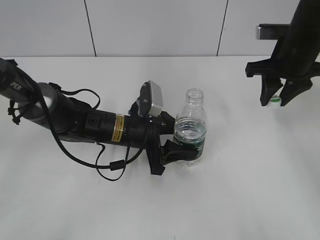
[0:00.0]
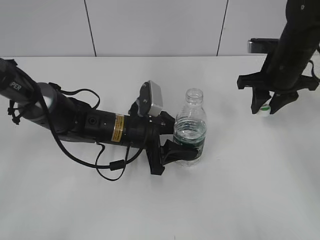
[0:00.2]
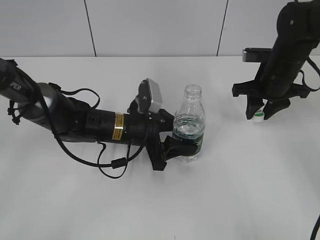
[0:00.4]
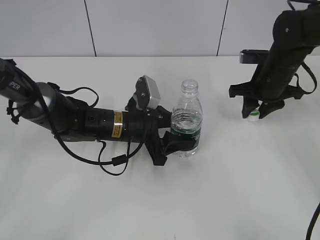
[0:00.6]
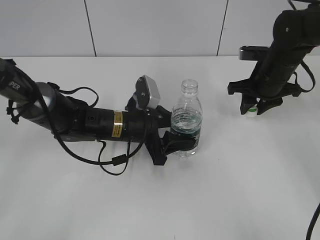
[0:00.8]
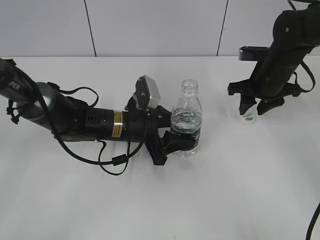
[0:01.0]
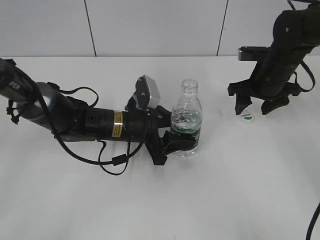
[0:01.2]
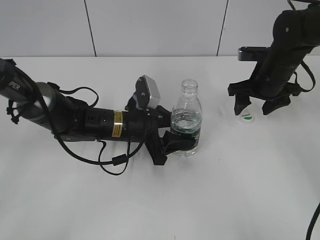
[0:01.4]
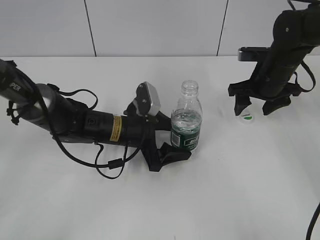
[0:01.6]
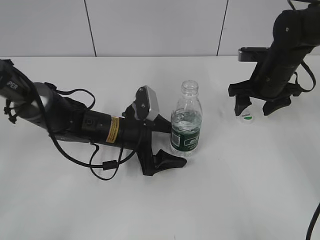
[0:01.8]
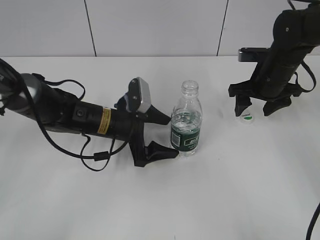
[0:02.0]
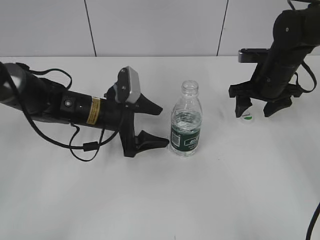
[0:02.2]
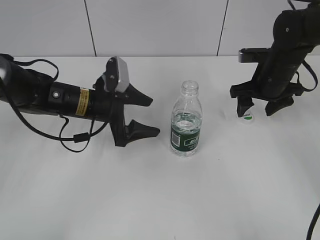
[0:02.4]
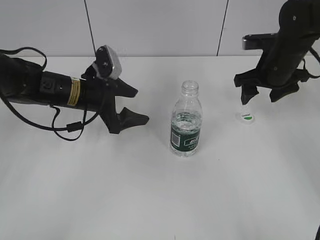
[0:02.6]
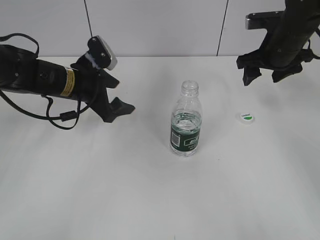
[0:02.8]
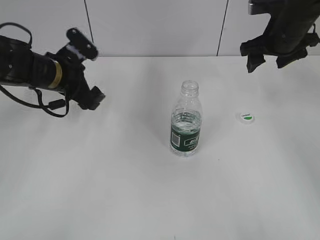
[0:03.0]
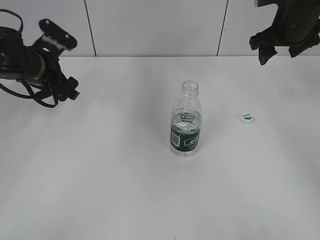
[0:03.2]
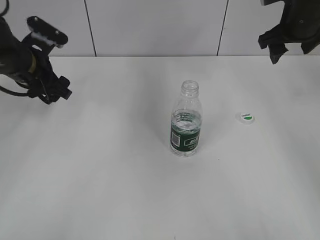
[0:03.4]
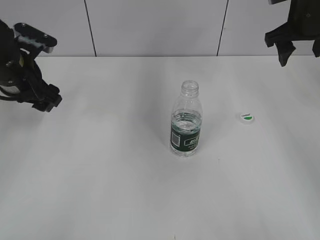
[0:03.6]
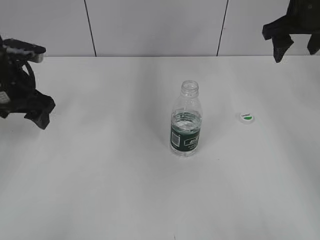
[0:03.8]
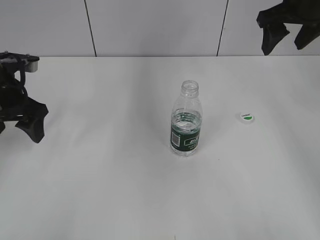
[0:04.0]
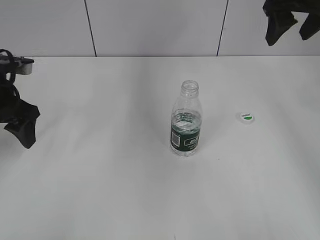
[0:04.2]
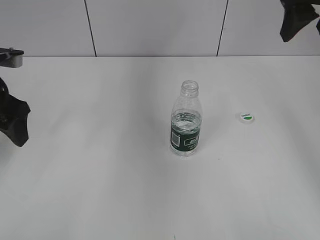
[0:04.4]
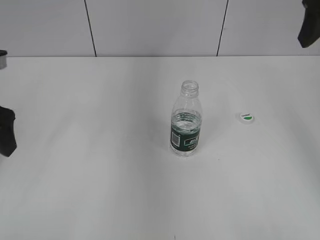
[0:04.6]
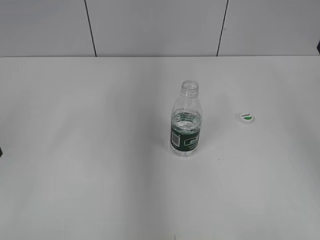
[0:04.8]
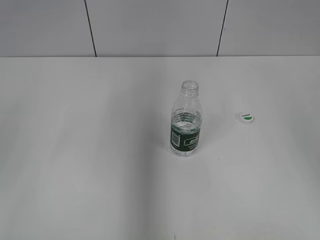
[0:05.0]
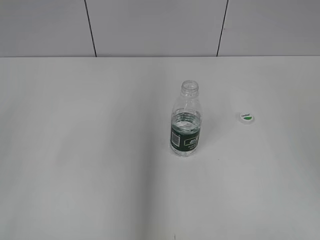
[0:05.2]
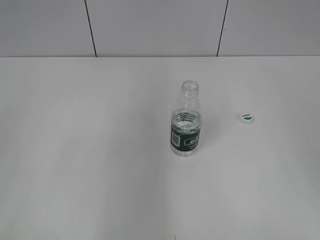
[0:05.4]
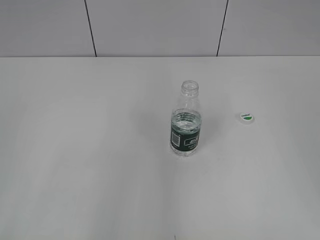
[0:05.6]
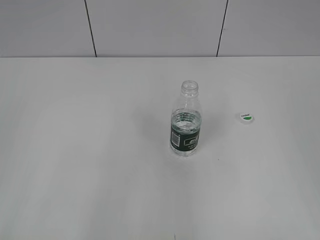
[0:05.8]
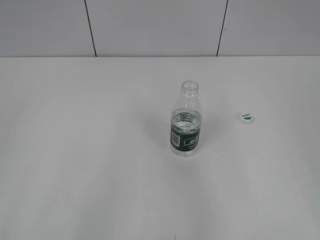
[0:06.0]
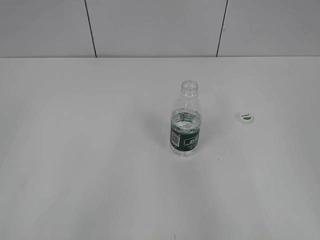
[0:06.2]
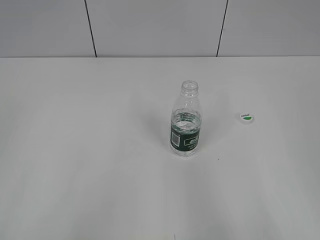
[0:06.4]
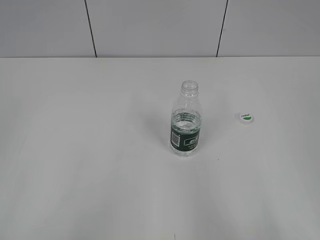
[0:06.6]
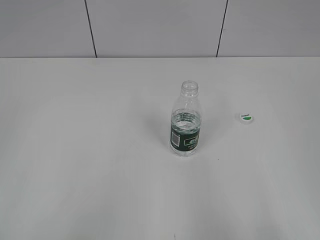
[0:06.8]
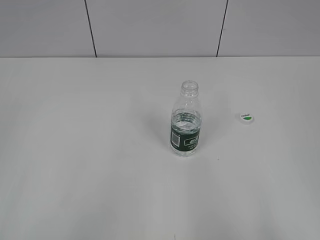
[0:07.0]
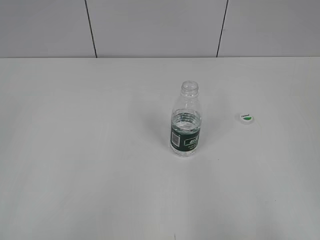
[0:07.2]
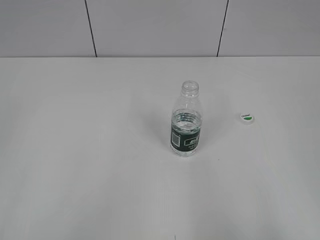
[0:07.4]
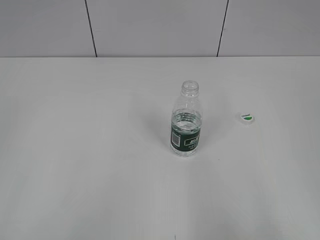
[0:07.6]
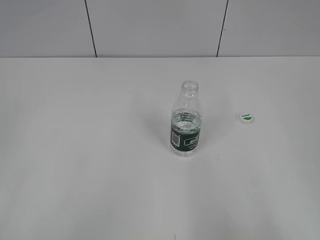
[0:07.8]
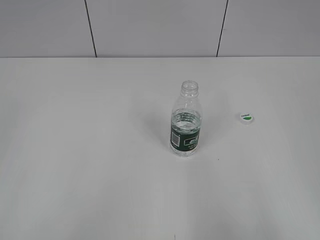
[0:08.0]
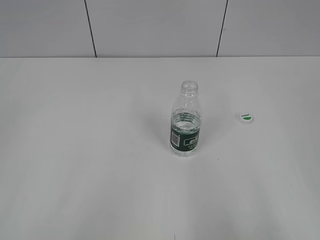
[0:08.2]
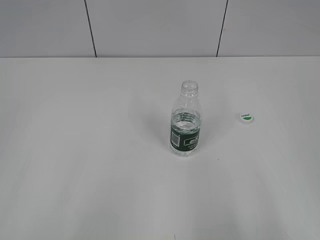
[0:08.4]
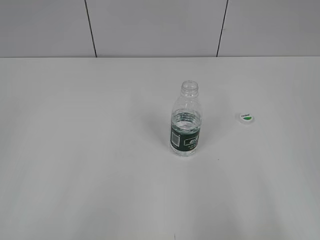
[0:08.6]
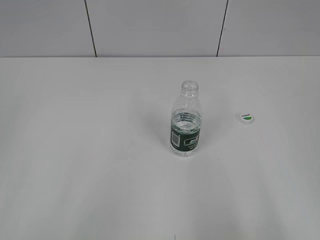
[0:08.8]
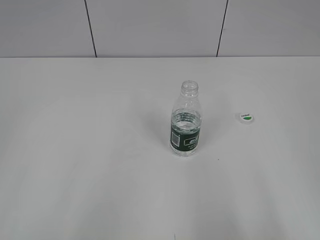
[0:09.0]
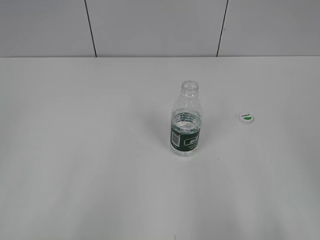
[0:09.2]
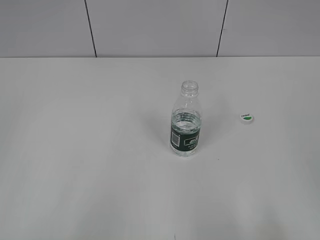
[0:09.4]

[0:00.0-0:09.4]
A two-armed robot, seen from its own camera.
0:00.0 to 0:01.6: The right gripper heads downward, covering about 10 cm, and opens. The left gripper opens up.
0:01.6 to 0:03.2: The right gripper goes roughly 10 cm upward. The left gripper goes roughly 20 cm to the left, upward and forward.
0:03.2 to 0:04.8: The two grippers go about 20 cm backward and upward.
0:04.8 to 0:06.2: The grippers both shift backward by about 20 cm.
